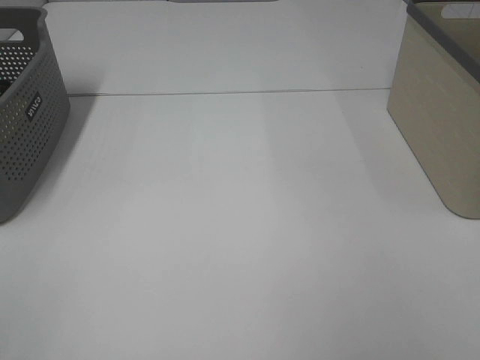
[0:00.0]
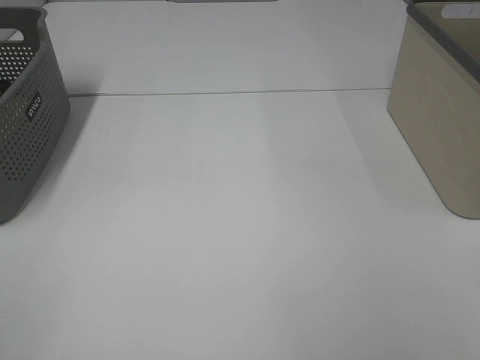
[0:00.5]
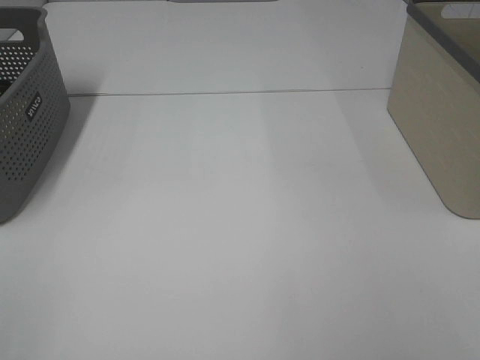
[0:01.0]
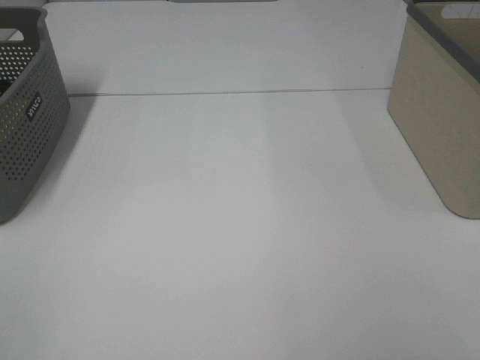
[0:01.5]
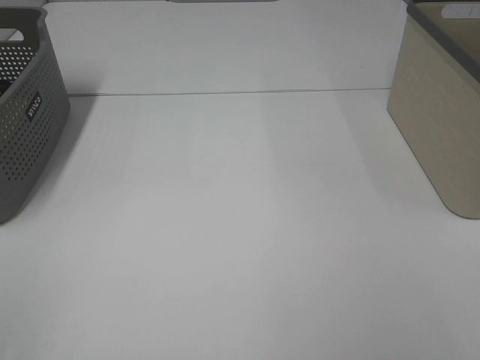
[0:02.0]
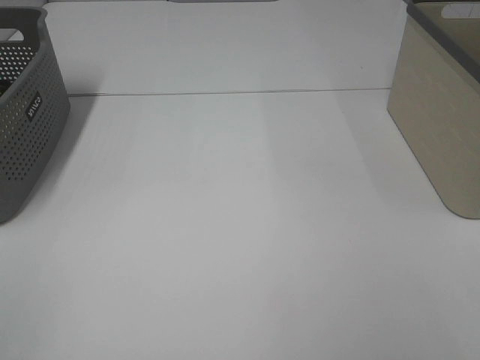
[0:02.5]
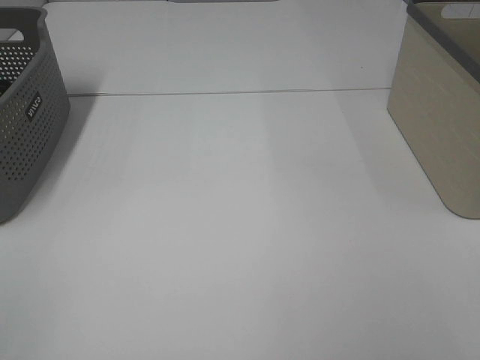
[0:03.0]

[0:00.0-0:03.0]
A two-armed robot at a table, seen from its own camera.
0:01.5 to 0:03.0: Neither gripper changes place.

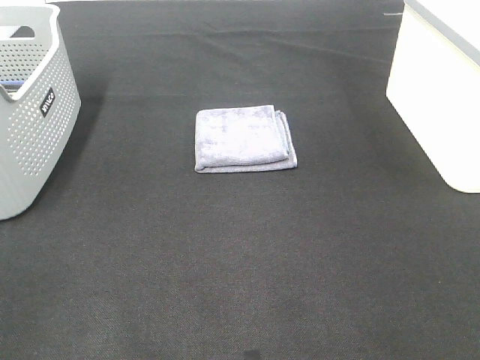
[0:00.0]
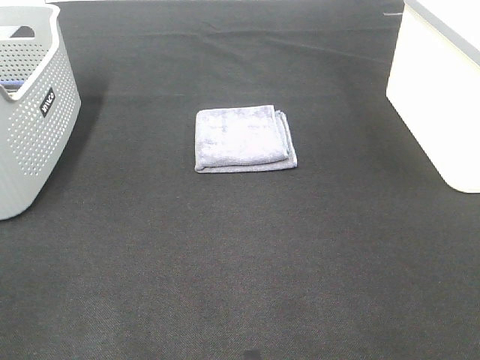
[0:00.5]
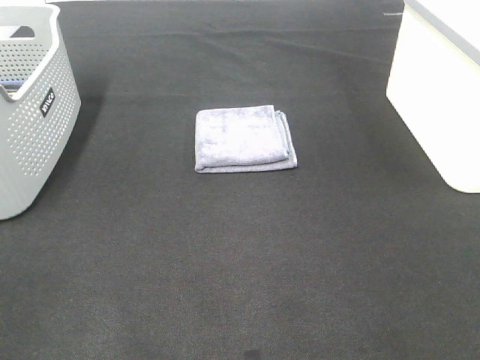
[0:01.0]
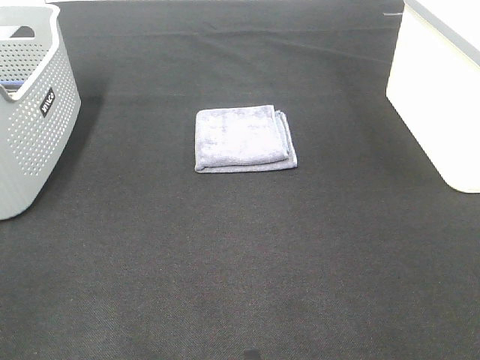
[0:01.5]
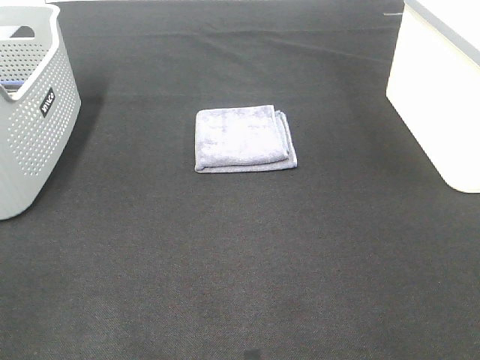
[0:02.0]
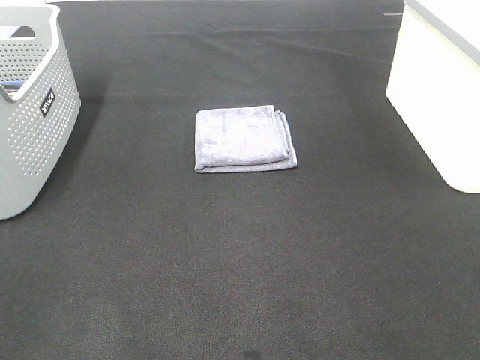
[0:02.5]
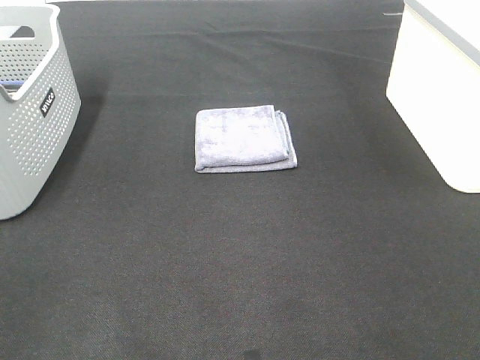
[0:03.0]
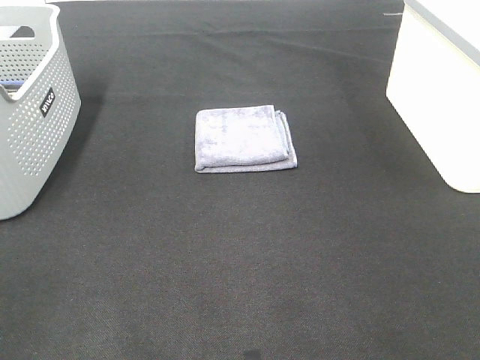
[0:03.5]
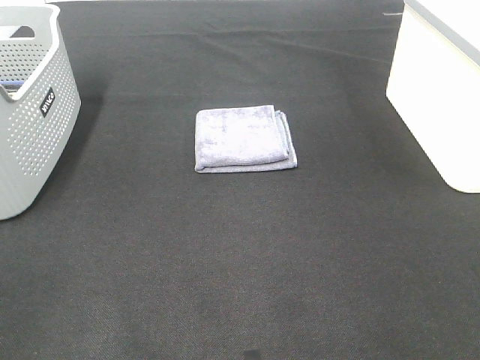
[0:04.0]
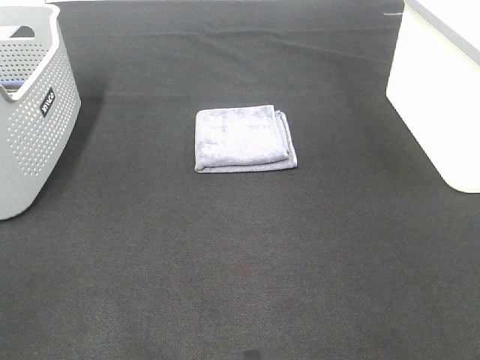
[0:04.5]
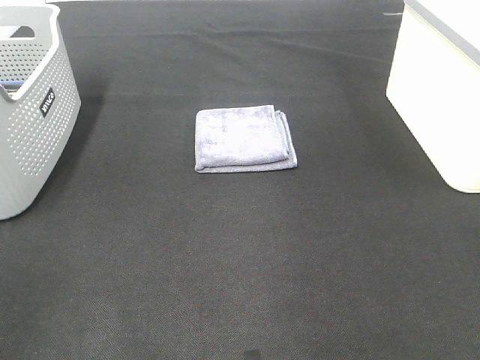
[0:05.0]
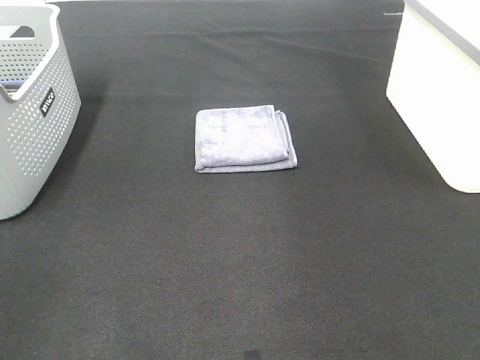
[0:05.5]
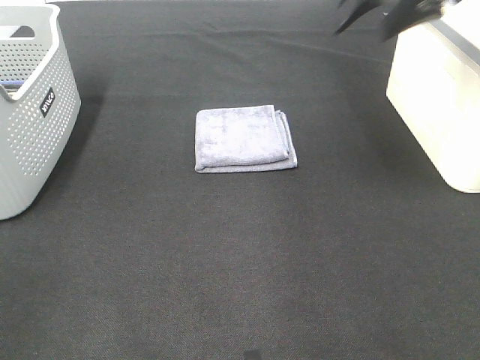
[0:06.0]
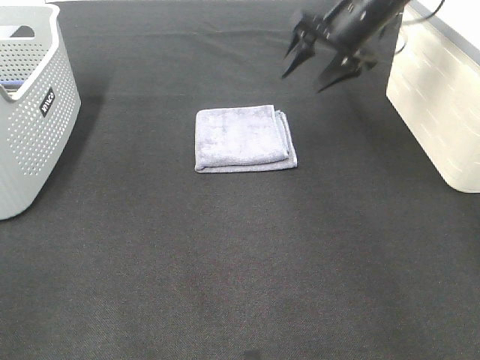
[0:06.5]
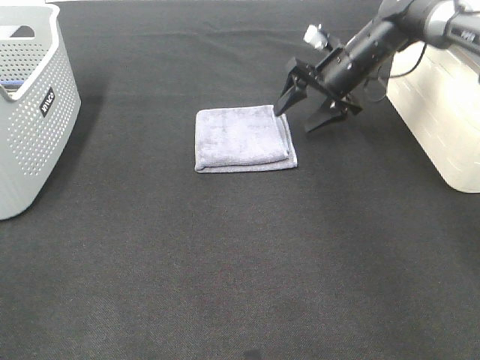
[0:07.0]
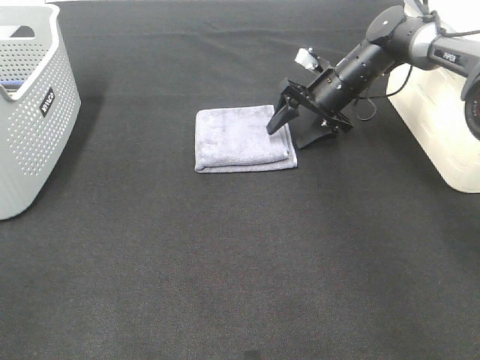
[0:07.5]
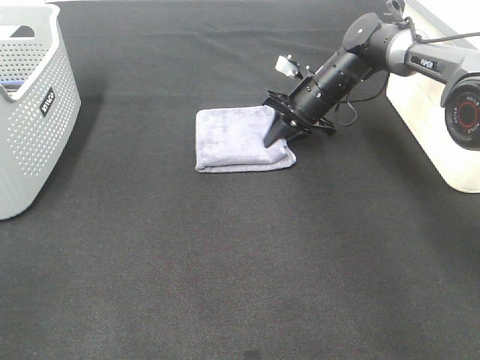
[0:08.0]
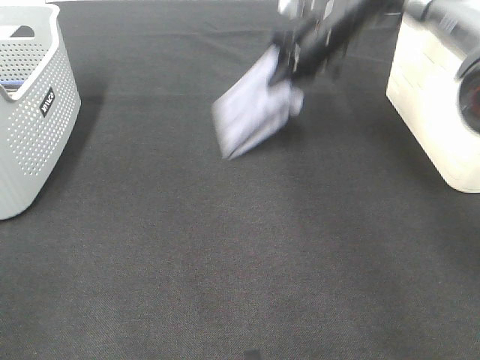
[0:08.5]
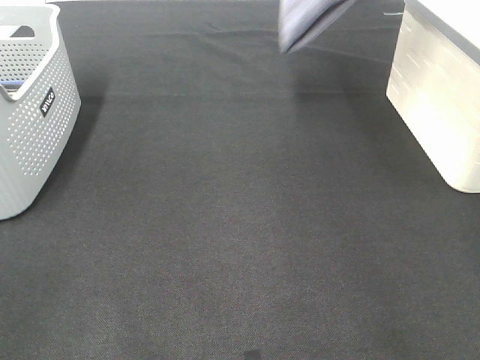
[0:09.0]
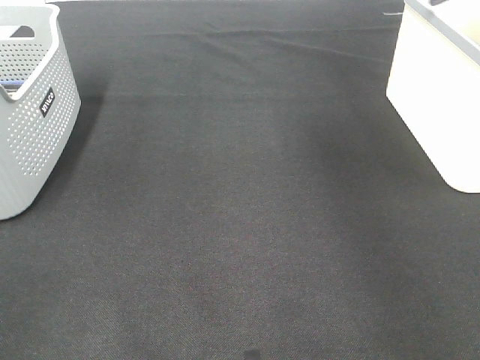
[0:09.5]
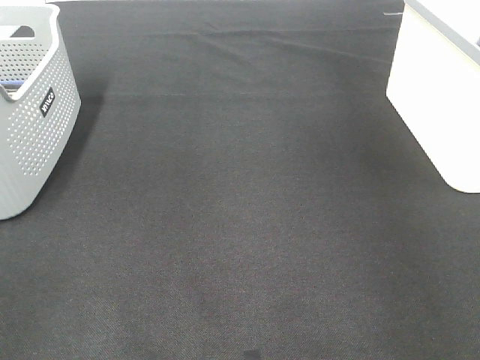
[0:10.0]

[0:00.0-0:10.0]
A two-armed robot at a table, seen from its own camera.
Step, 0:00.0 to 0:08.0: Right hand: grab the folded grey towel.
0:00.0 to 0:04.0: Both grippers stay put.
0:04.0 to 0:06.0: The right gripper moves forward, approximately 40 cm.
0:06.0 to 0:08.0: The right gripper is displaced downward and forward by approximately 25 cm, and closes its fingers.
0:08.0 to 0:10.0: The right gripper heads to the right and upward, covering roughly 35 cm.

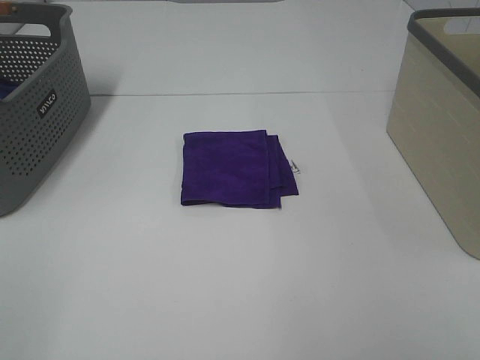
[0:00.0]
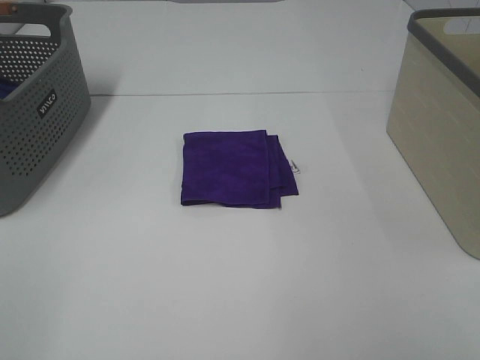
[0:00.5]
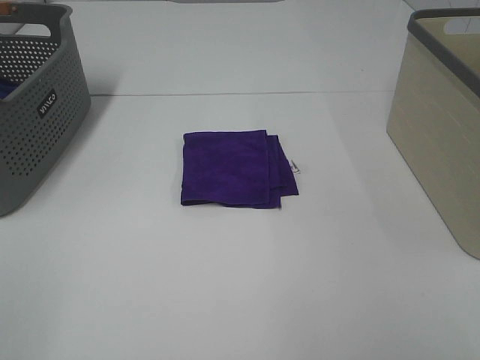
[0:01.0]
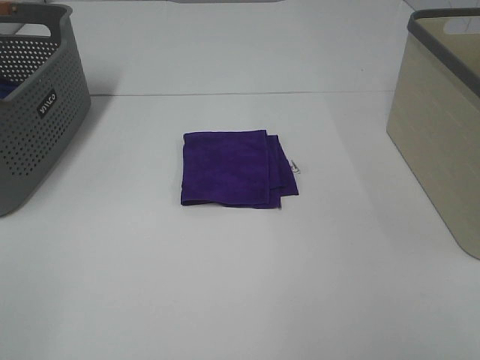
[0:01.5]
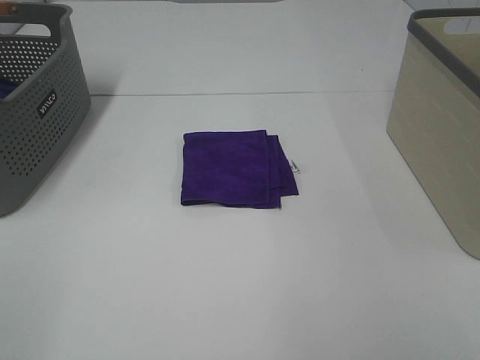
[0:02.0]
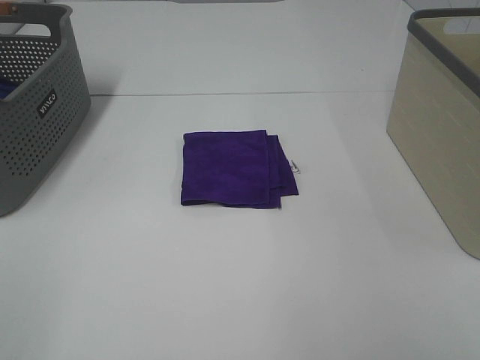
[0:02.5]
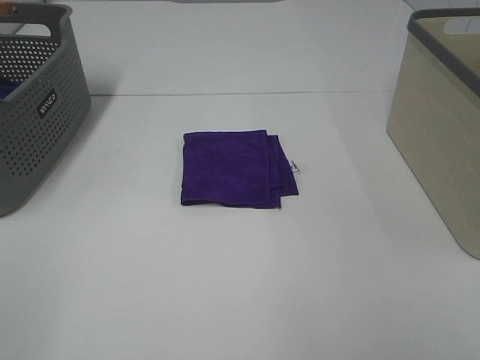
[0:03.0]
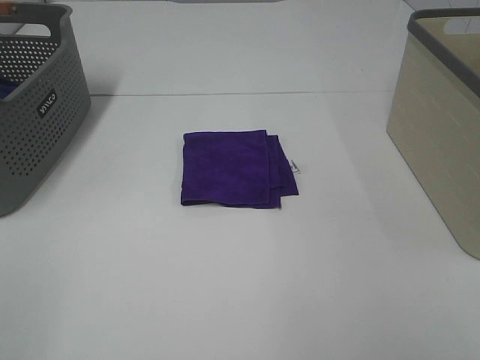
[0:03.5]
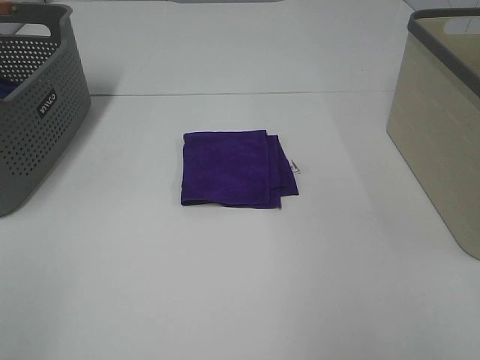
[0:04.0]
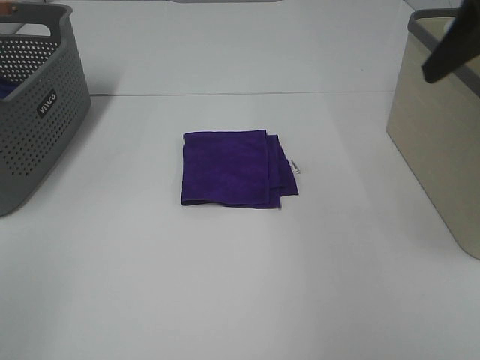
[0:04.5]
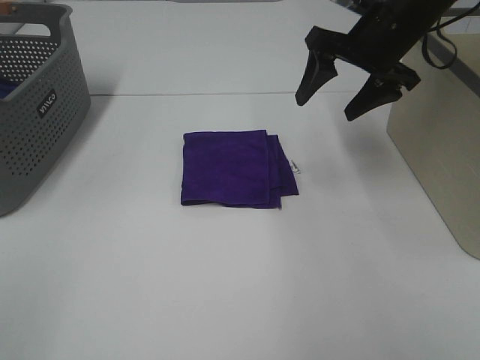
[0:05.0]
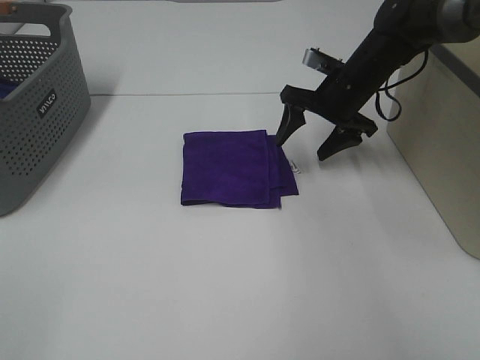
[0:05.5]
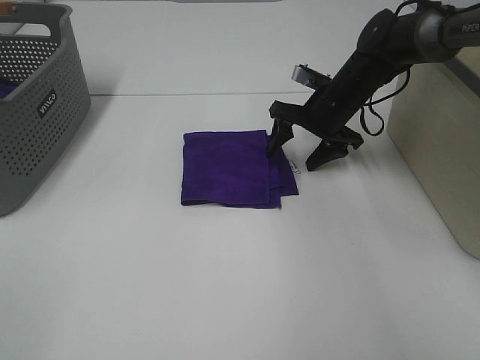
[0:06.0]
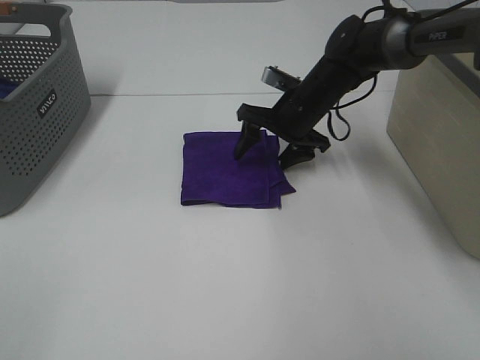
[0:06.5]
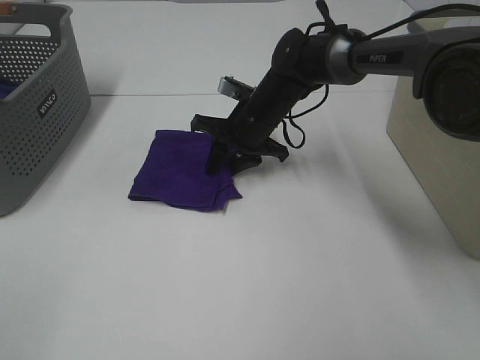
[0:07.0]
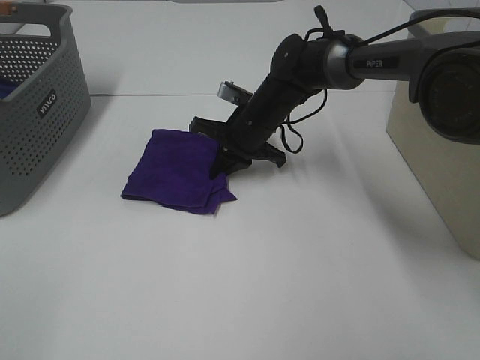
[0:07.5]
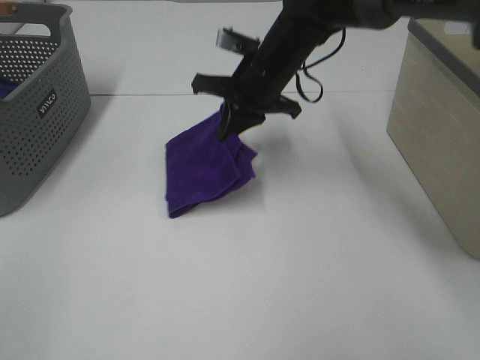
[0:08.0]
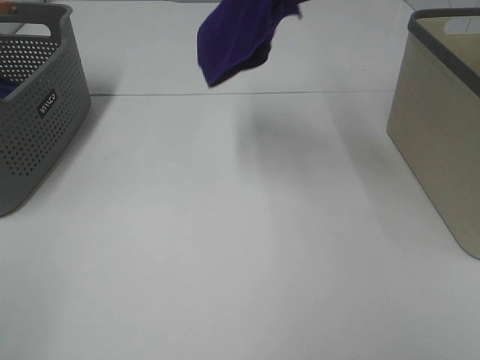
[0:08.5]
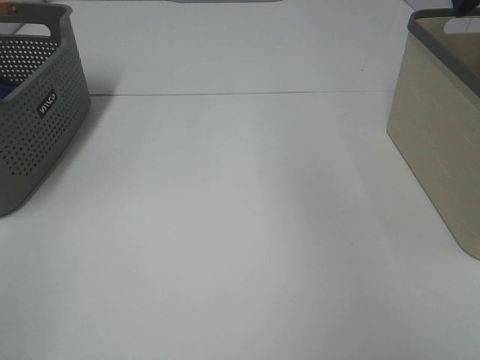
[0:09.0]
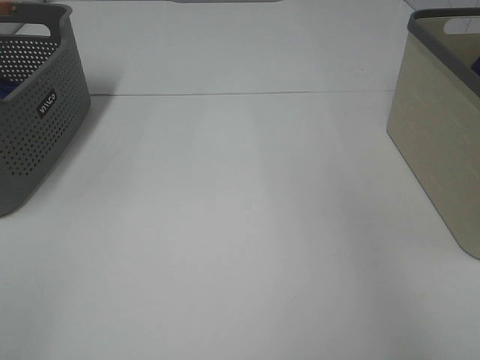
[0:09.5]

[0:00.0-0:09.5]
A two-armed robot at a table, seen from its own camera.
Step, 0:00.0 to 0:07.0: Right hand: grab the folded purple towel.
0:00.0 to 0:02.0: Both grippers stay put.
0:04.0 to 0:05.5: The right gripper travels forward and downward by roughly 40 cm.
0:05.5 to 0:07.5: The right gripper moves to the left and downward, roughly 15 cm, and closes.
0:07.5 to 0:09.5: The right gripper goes some 50 cm to the right and upward.

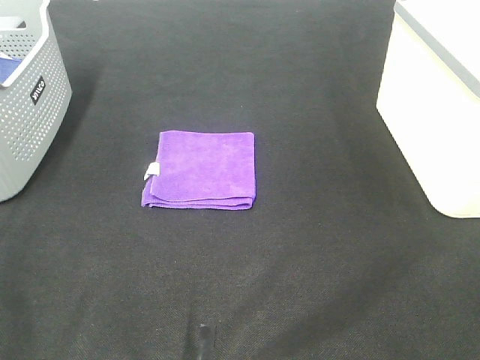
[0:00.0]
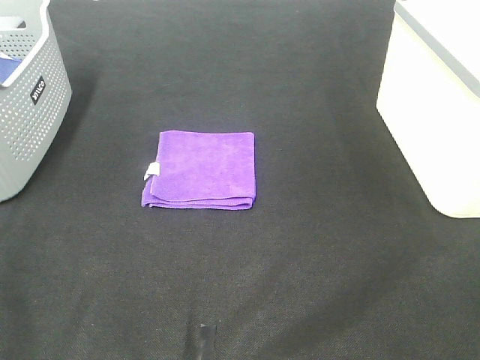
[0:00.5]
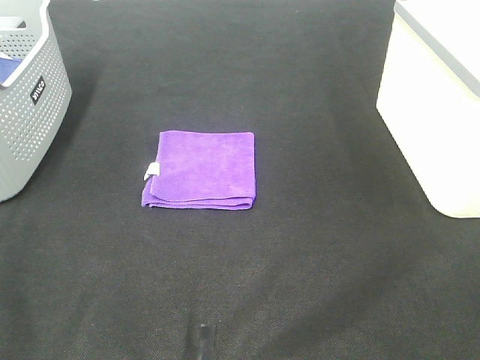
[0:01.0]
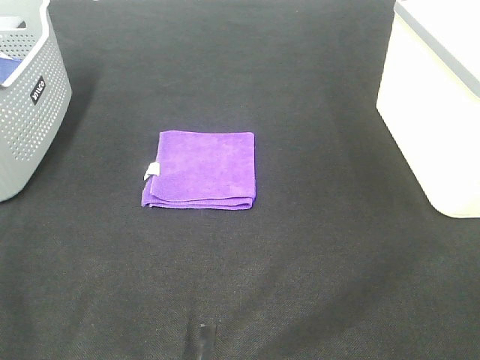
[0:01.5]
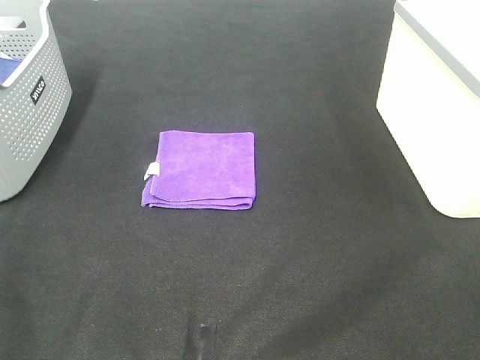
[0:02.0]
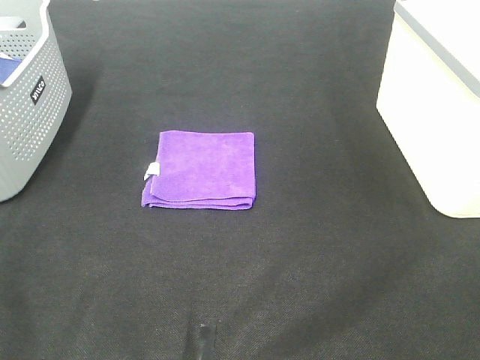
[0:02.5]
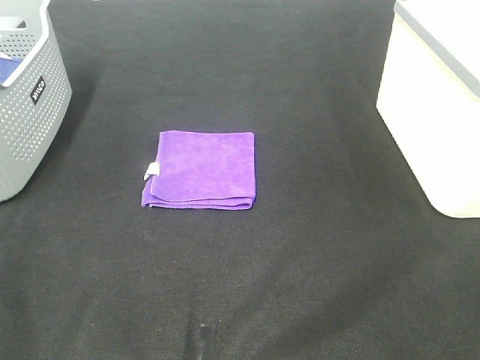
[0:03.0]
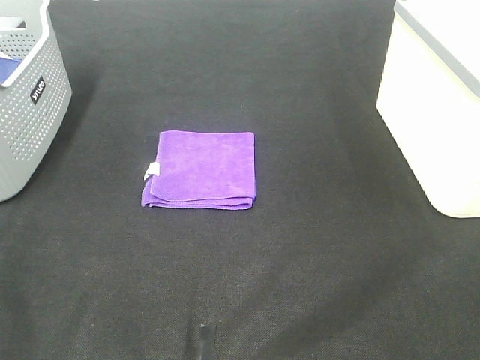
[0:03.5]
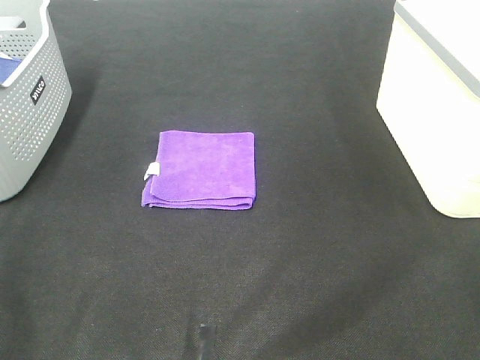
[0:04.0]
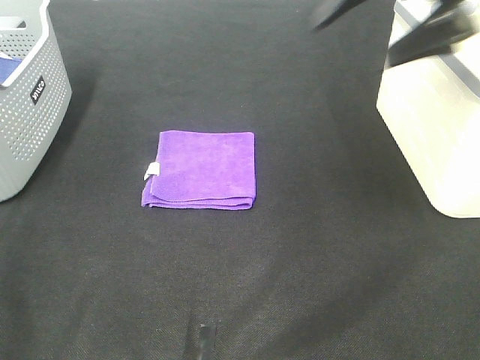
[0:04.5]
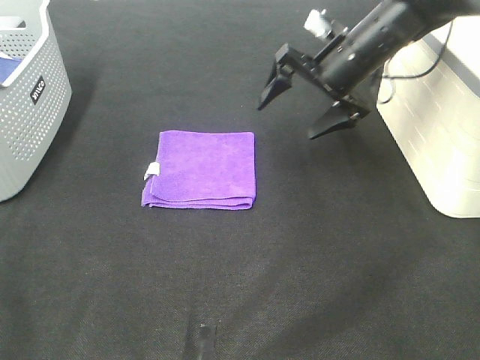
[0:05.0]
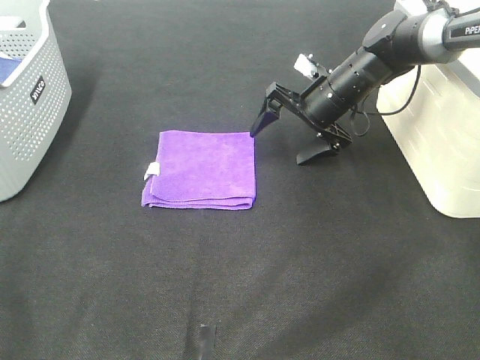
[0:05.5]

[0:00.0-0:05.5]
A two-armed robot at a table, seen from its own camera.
0:00.0 to 0:03.5: Neither gripper changes place.
0:03.5 to 0:05.5: The right gripper moves forward, about 50 cm.
